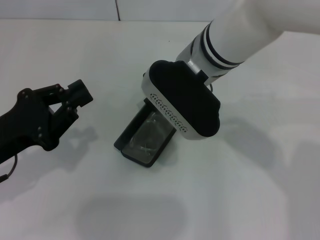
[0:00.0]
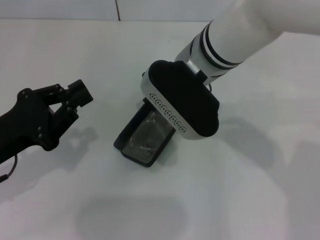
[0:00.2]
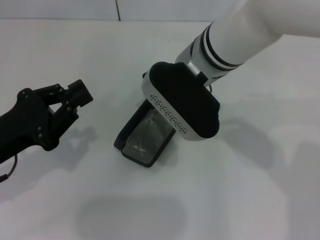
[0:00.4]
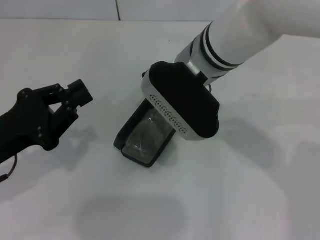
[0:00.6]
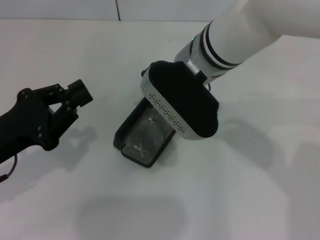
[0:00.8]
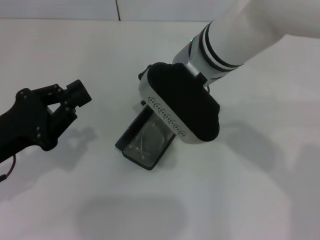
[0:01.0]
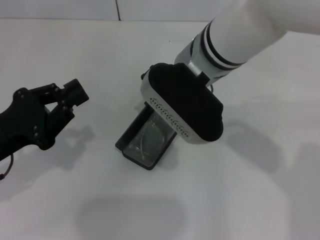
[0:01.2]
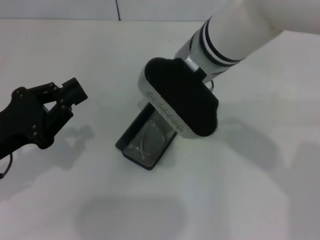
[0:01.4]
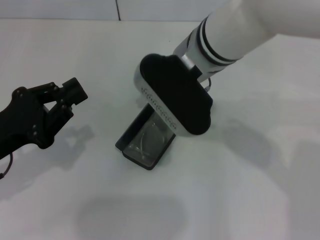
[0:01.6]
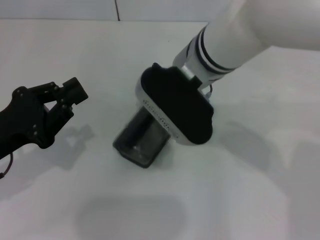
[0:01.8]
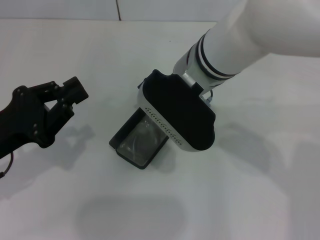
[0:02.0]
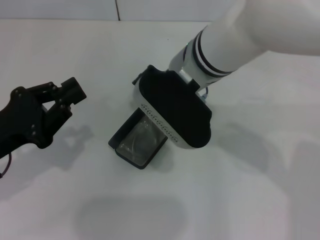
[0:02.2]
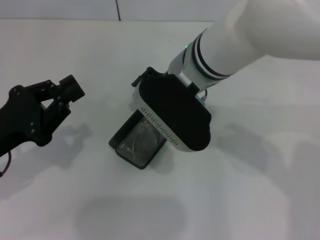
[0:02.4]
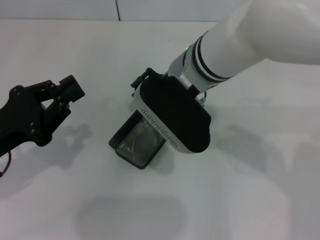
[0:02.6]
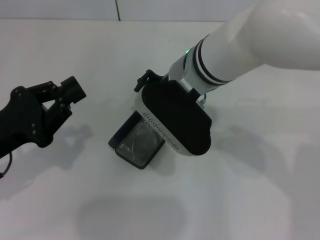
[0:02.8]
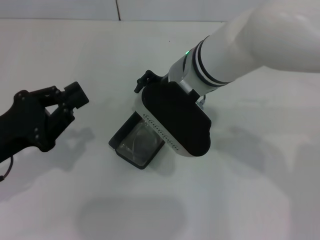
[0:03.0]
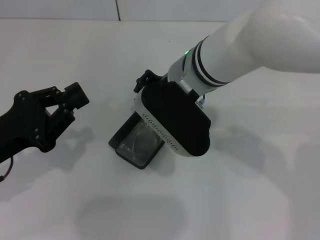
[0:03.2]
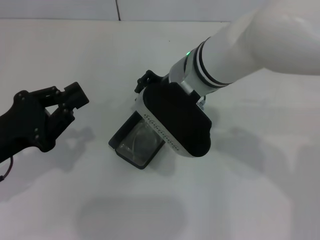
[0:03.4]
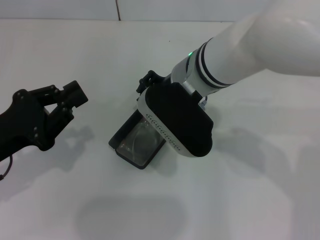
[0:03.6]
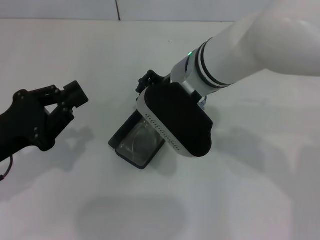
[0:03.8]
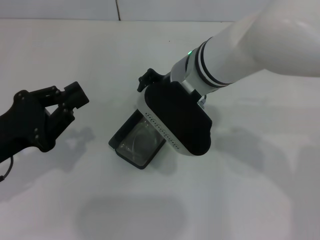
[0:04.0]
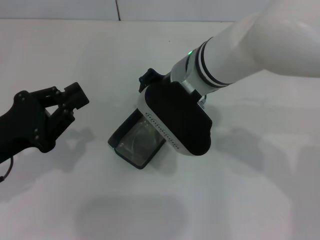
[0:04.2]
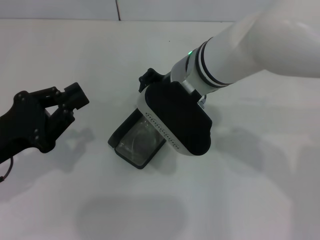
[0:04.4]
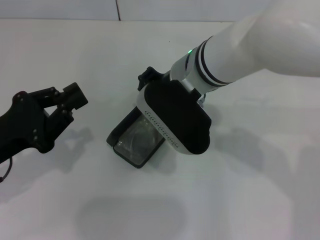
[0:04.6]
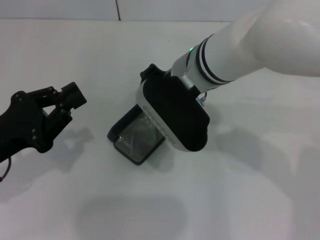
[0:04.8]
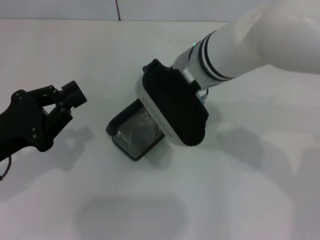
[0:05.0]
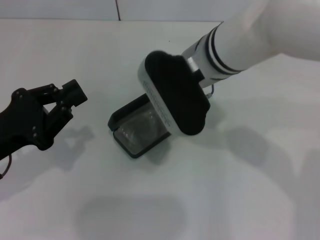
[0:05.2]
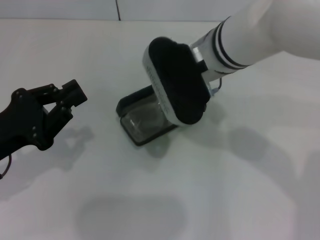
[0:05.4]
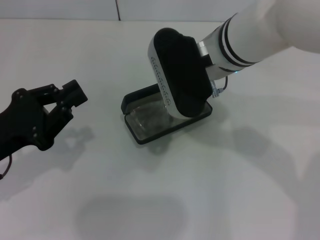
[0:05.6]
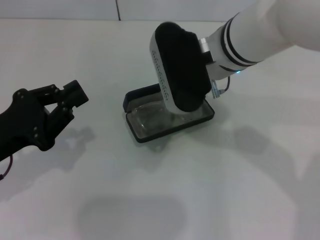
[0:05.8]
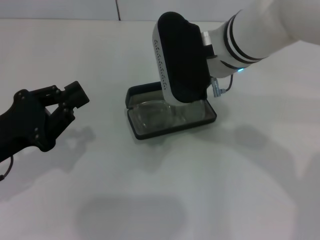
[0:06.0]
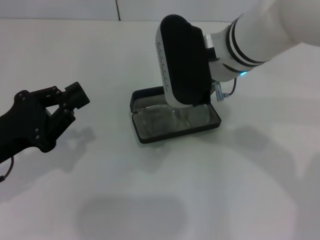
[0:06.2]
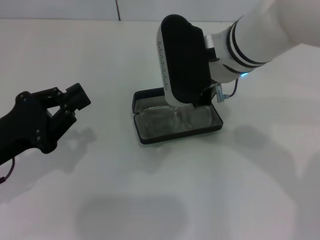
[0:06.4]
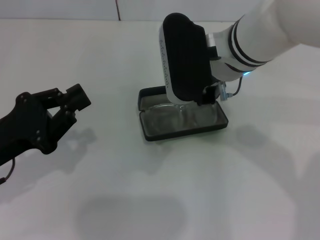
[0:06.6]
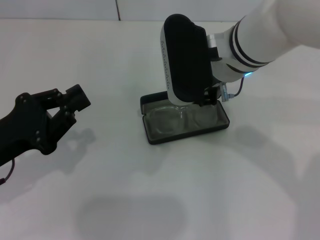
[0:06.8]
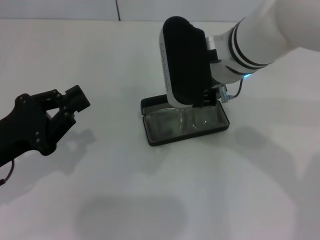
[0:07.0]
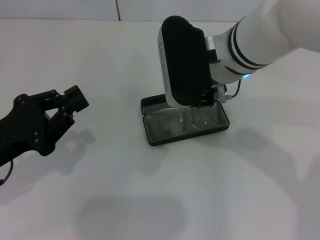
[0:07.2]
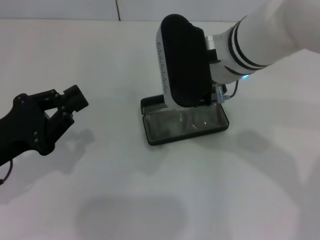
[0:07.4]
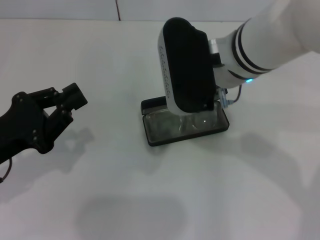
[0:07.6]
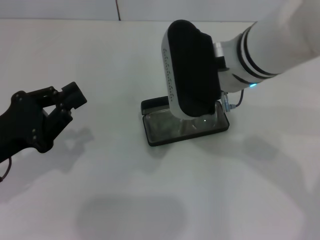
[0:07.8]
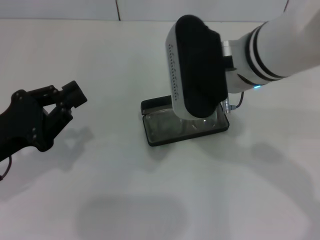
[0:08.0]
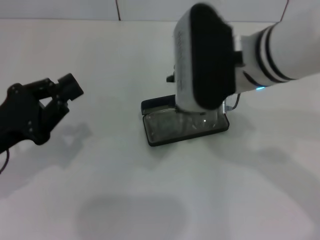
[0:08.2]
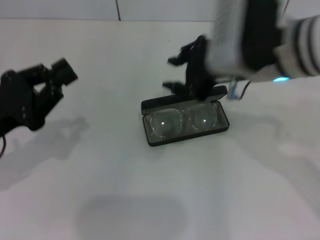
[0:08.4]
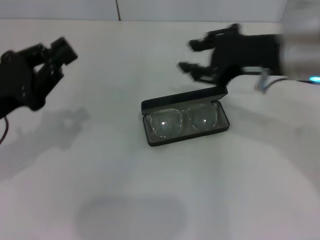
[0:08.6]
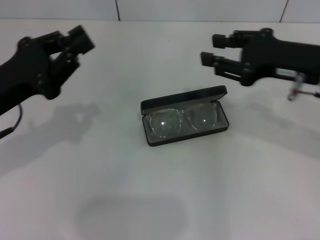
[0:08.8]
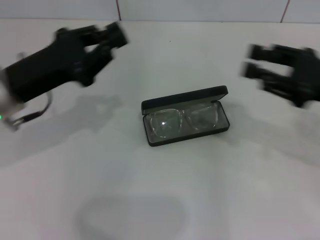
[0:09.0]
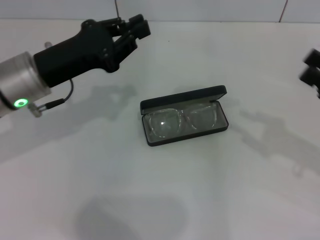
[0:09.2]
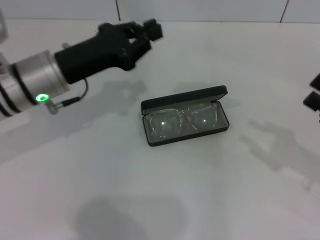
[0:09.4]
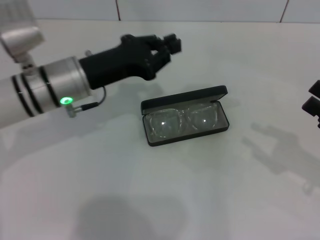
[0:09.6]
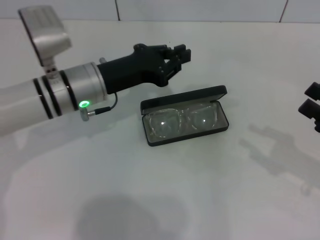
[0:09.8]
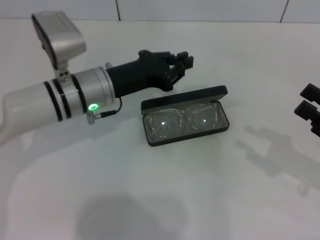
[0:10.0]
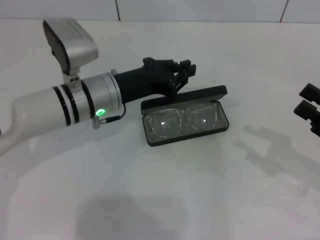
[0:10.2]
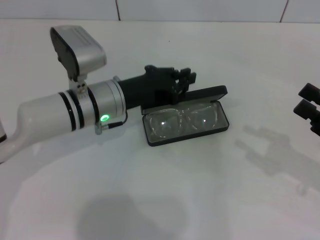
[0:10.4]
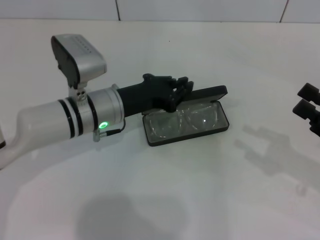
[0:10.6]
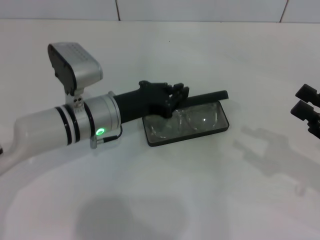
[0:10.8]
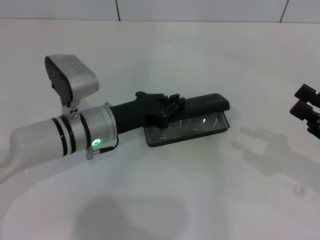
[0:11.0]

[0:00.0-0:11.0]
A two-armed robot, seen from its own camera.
Step, 0:00.0 to 0:04.4: Grab the glasses case with your right hand.
Step, 0:04.6 to 0:07.6: Place the glasses case in the center of the table with your right hand.
0:00.0 to 0:01.6: The grippers make only small movements.
0:01.6 to 0:03.2: The right gripper opens its fingers.
0:03.2 to 0:04.8: The two grippers keep their place.
0:06.2 to 0:07.8: The grippers move only a little.
0:07.8 to 0:09.4: The left gripper is displaced forward and to the right by approximately 15 cm, while the right gripper heads to the right, downward and backward, covering some 30 cm.
0:09.4 to 0:11.0: The left gripper heads downward, covering some 10 cm.

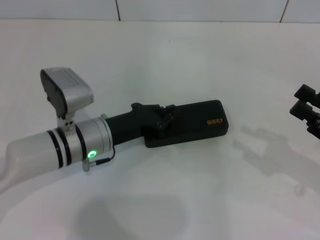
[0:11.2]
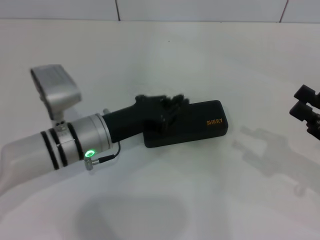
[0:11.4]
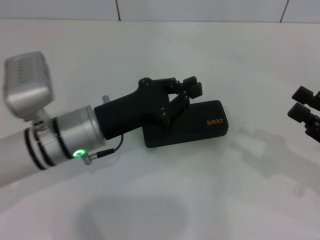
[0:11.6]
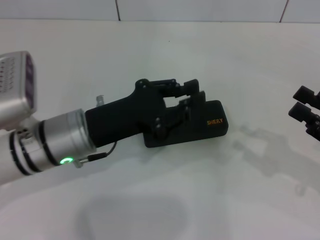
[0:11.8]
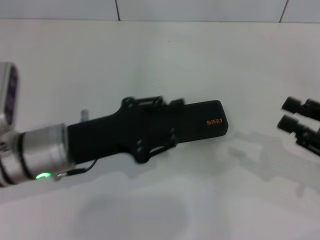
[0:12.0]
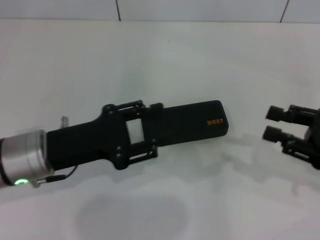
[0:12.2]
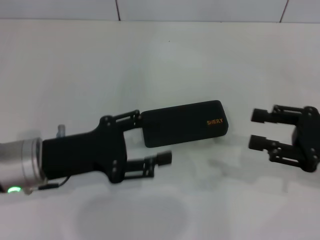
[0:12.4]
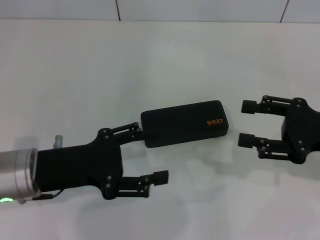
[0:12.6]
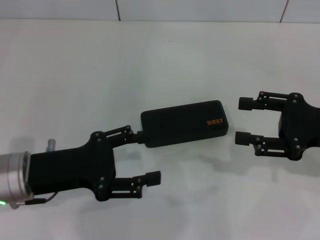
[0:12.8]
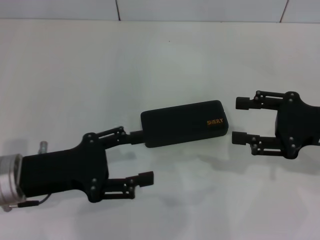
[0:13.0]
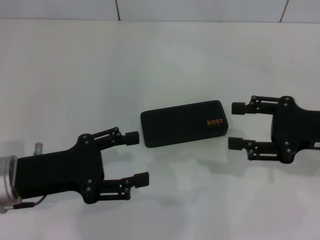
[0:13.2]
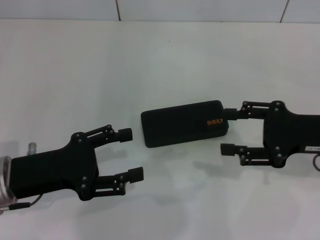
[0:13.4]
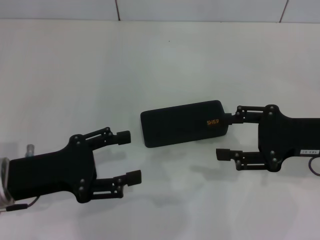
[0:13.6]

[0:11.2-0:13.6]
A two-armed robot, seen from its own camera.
0:11.2 to 0:12.4: The right gripper ends up some 5 cm from where it was, while the left gripper heads upward, backward and to the left, covering approximately 10 cm, and opens its fingers.
0:12.4 to 0:13.6: There are only small adjustments of the grippers.
